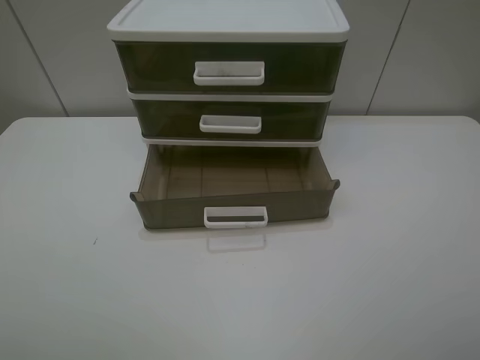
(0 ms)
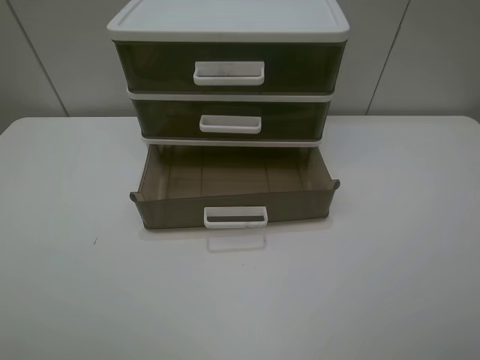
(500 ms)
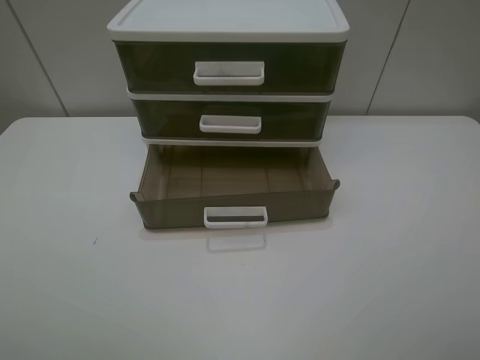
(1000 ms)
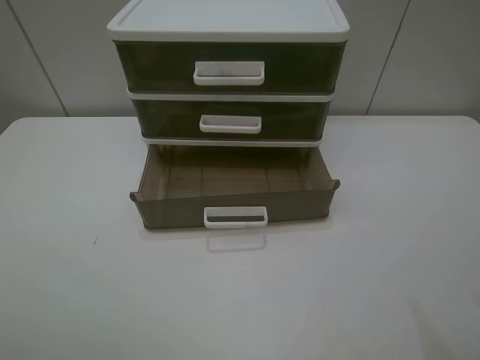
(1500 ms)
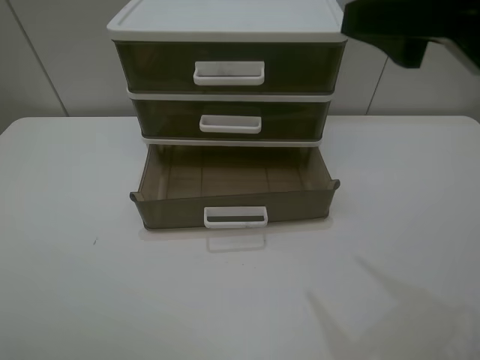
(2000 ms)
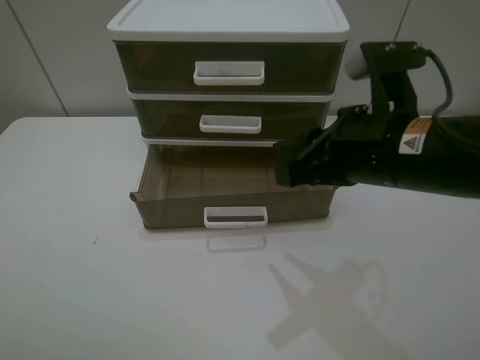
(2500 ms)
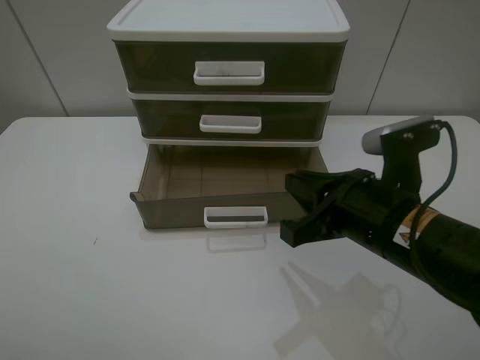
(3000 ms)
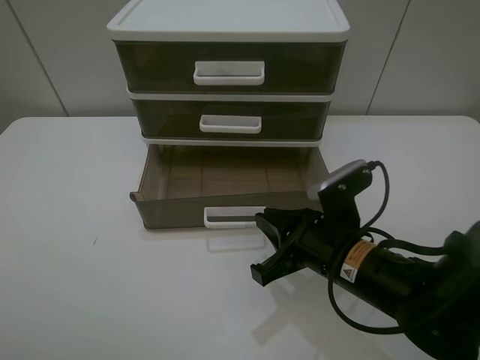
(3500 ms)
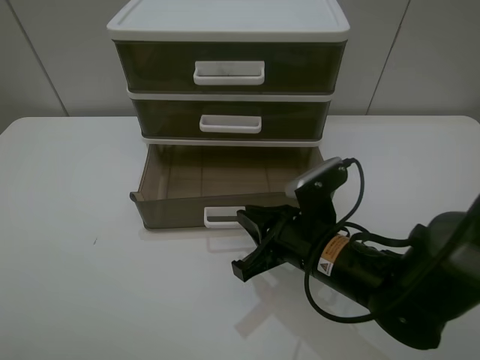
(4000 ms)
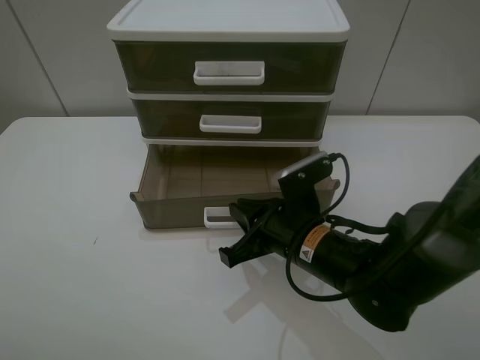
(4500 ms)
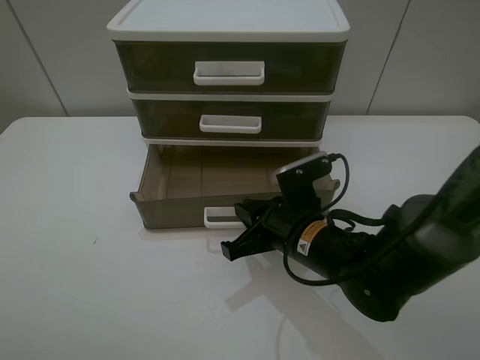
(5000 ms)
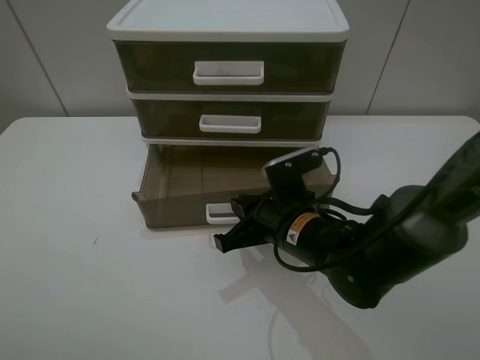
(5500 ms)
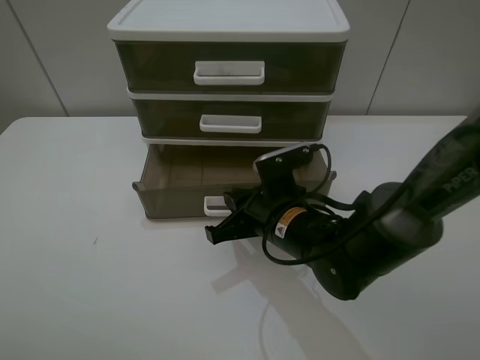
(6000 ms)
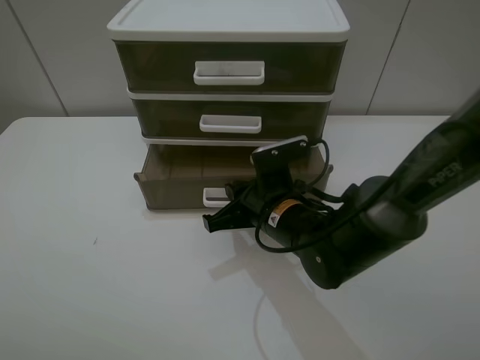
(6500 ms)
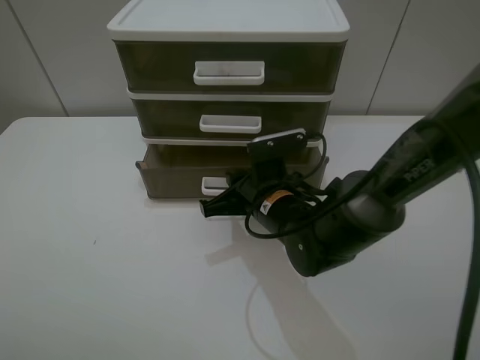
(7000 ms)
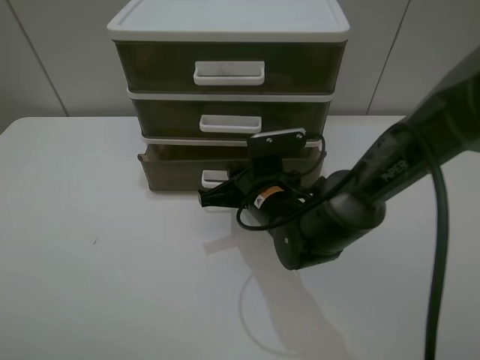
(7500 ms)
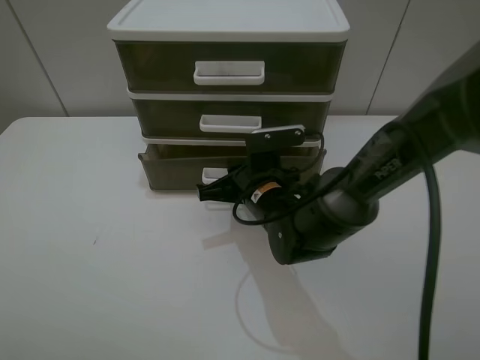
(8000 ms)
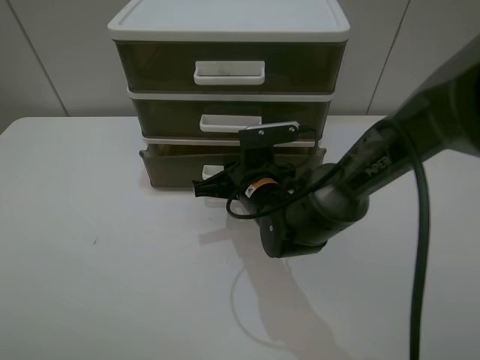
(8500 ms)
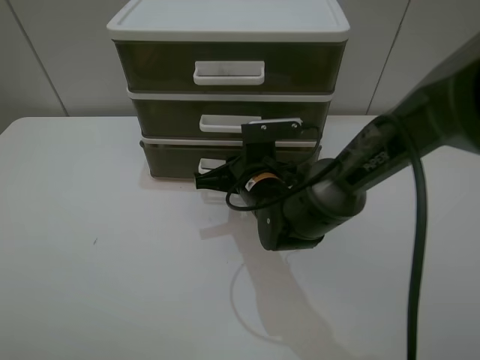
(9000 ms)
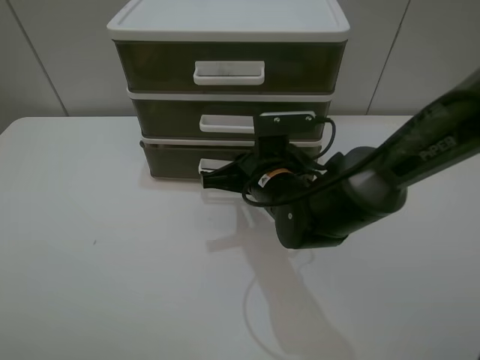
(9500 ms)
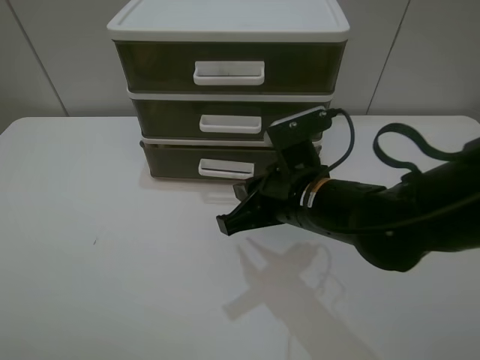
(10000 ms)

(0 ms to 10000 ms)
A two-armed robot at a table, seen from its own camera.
Task of the whole recording: close the bottom drawer.
Step, 0 ms - 5000 ms: Use the right gripper to contact the bottom layer of the storage cabinet.
Step, 5500 ms - 9500 ms: Push the bottom drawer closed.
0 ms - 2000 ms: The right gripper is displaced forward and to the left by about 20 cm.
2000 ms - 4000 ms: The right gripper moves downward, about 25 cm, and closes up.
4000 ms - 6000 ms: The right gripper moves about 5 cm.
6000 ms - 8000 ms: The right gripper changes place by about 5 cm.
8000 ms - 10000 ms: The right gripper shifts some 10 cm upward and backward.

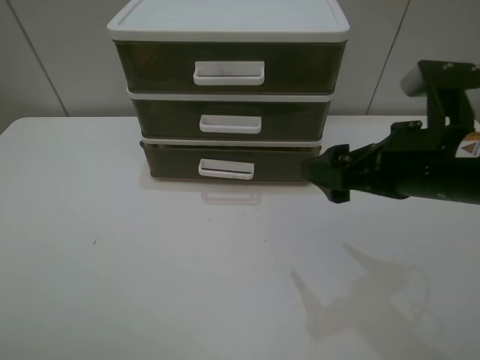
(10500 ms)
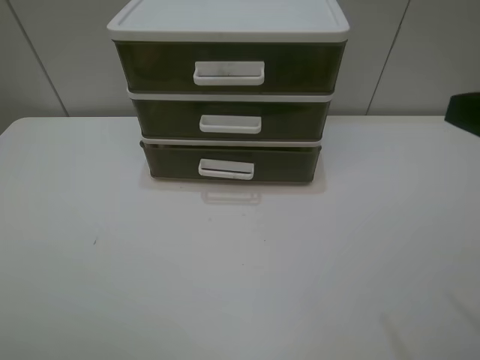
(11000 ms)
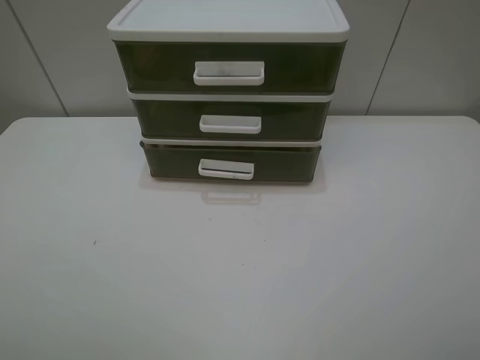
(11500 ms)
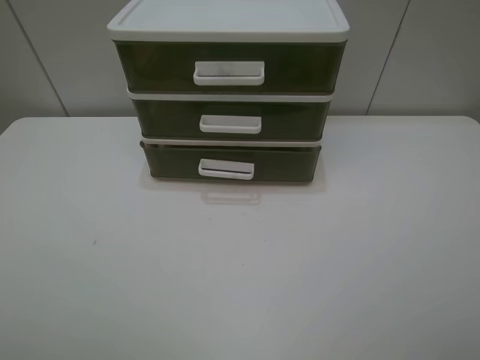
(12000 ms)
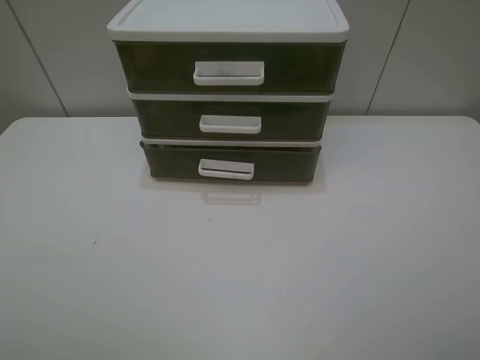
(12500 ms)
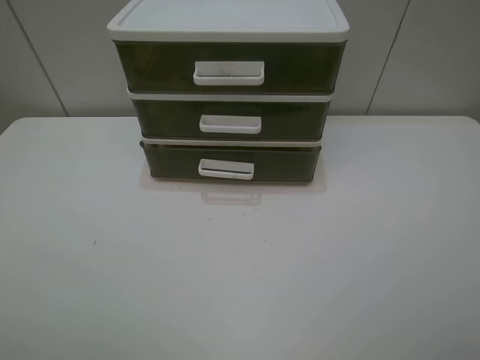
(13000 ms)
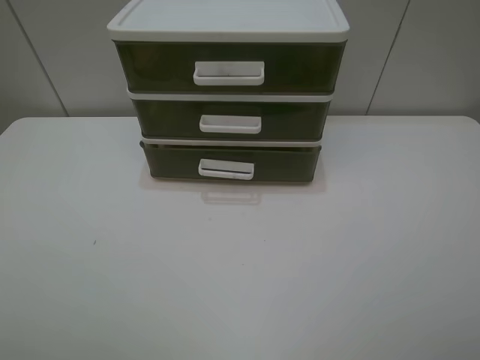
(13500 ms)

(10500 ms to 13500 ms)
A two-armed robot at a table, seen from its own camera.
Task of the whole recording: close the bottom drawer.
10500 ms - 12000 ms: The right gripper travels backward and to the right by roughly 20 cm.

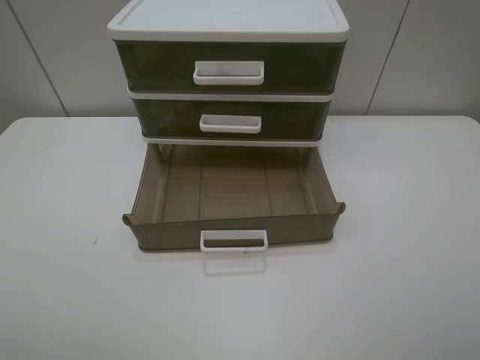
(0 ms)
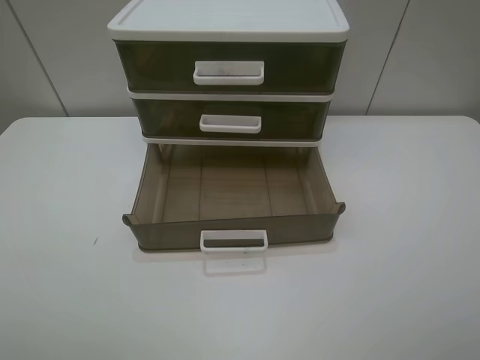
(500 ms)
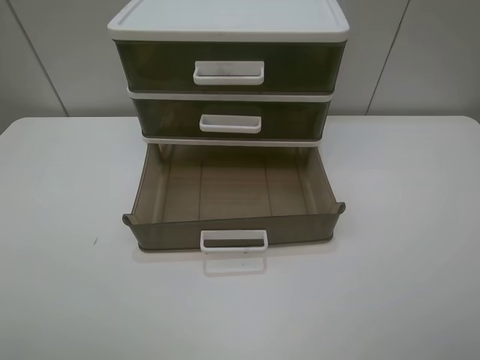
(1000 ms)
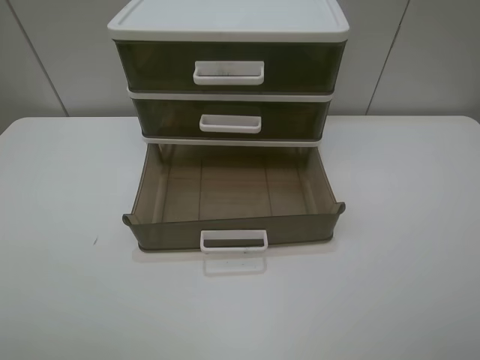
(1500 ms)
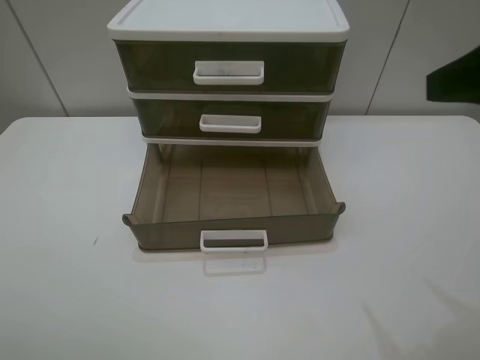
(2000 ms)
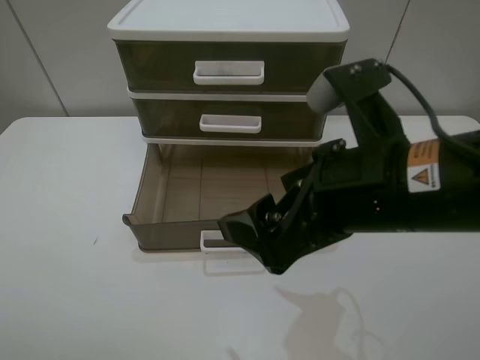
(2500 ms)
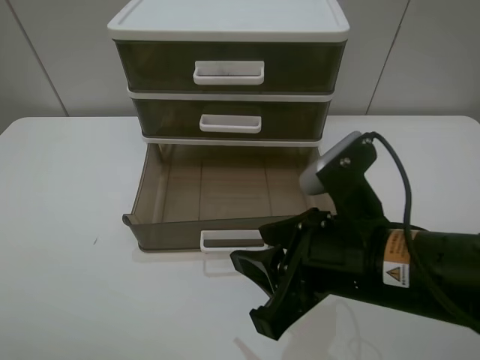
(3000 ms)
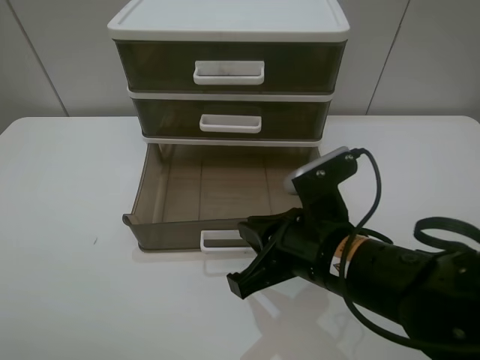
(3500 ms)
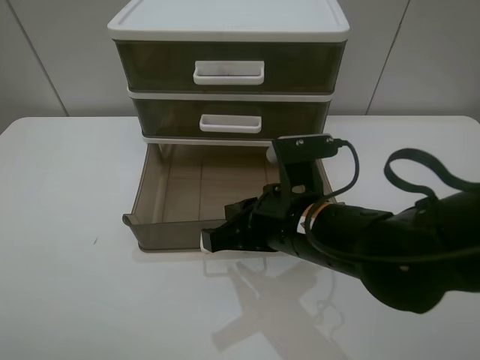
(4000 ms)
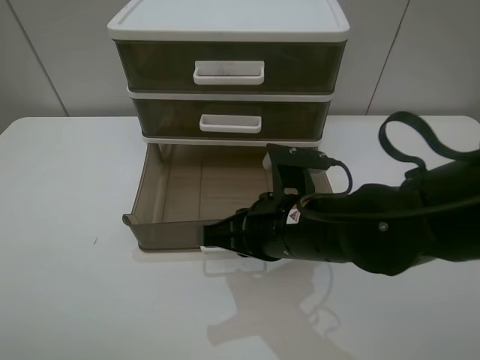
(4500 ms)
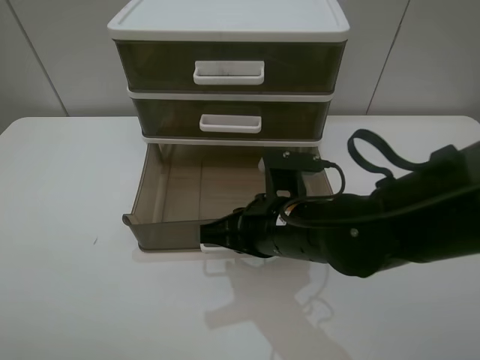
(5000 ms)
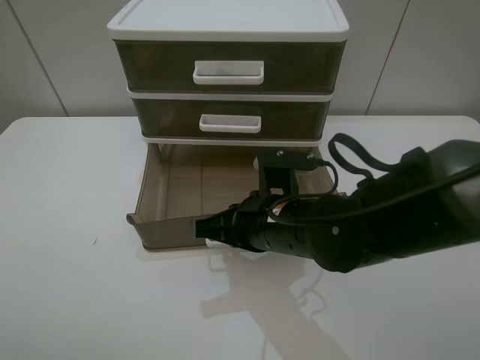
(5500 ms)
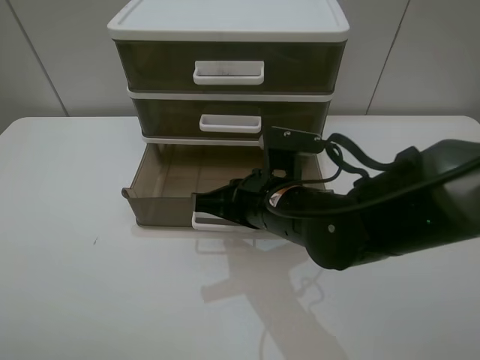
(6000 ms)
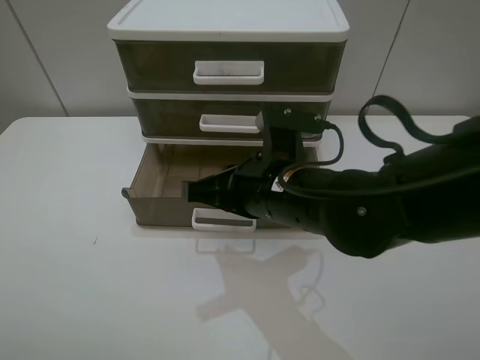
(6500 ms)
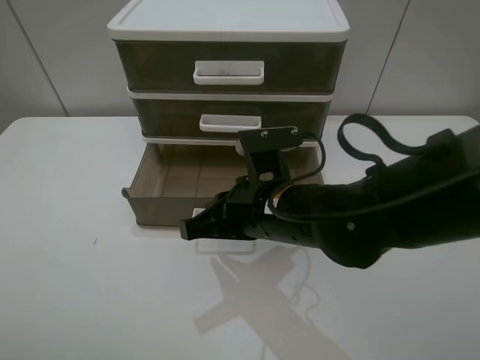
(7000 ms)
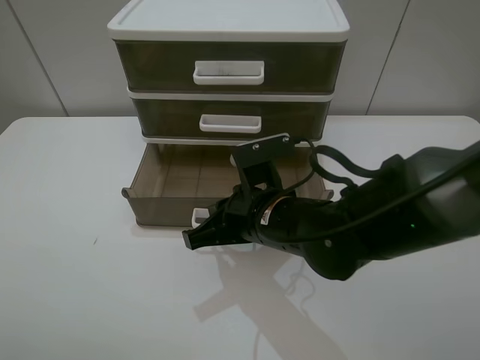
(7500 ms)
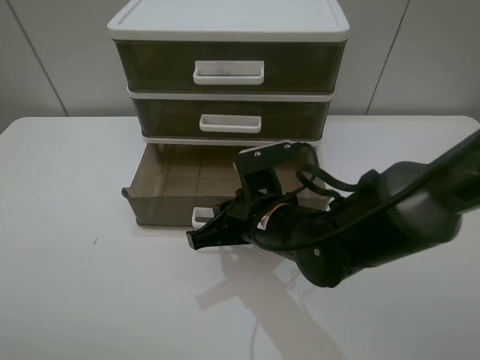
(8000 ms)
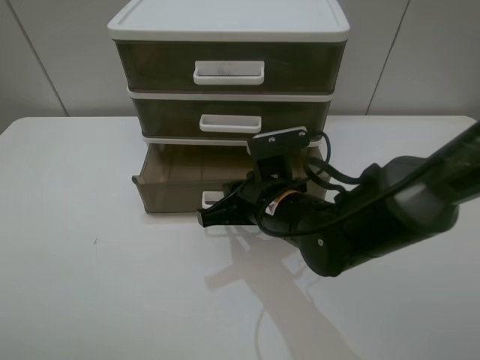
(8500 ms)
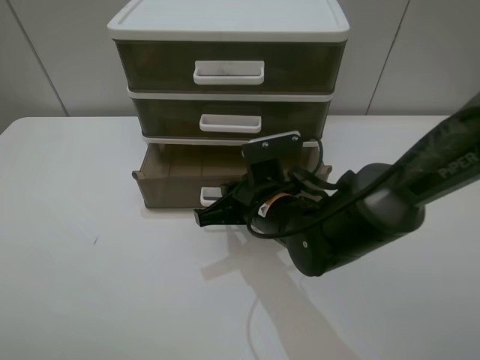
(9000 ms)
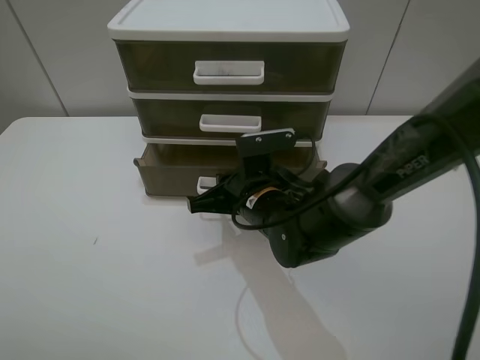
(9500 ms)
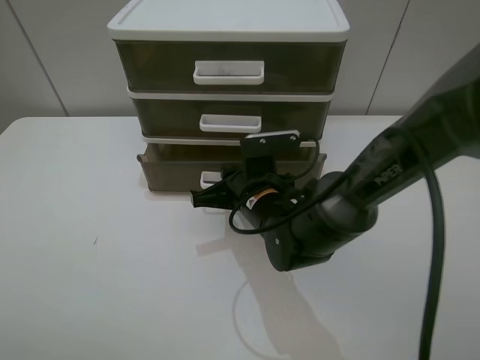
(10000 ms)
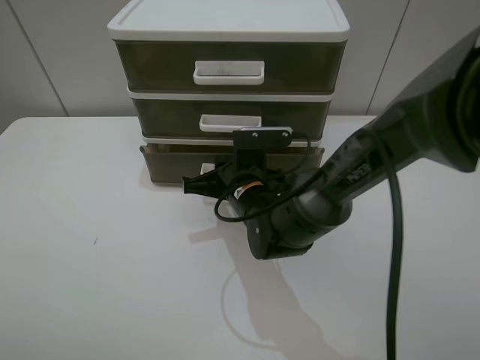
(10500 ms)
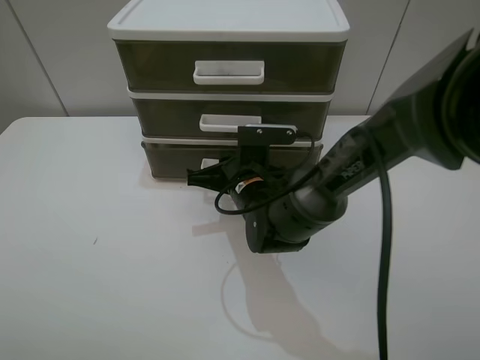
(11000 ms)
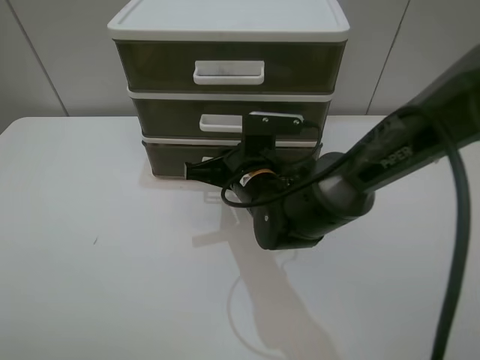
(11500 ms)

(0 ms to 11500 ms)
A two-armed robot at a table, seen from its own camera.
Task of the whole recording: close the bottom drawer.
Step, 0 ms - 5000 ms: Use the right gripper to contact the bottom layer of the storage cabinet.
Step, 5500 ms - 11000 ms: Push the bottom drawer closed.
0 ms - 2000 ms: The right gripper heads forward, covering about 15 cm.
2000 ms - 4000 ms: The right gripper is displaced downward and to the left by about 25 cm, and closes up.
4000 ms - 7500 ms: The grippers make only small movements.
7500 ms - 9500 ms: The right gripper moves forward, roughly 5 cm.
9500 ms - 11500 ms: The grippers move only a little.

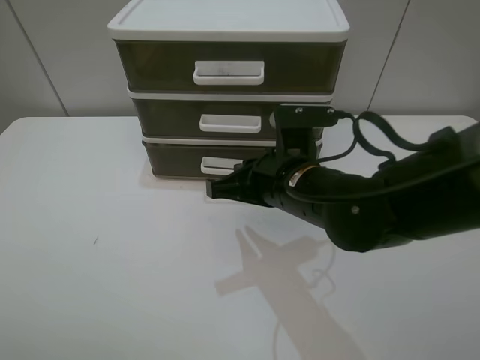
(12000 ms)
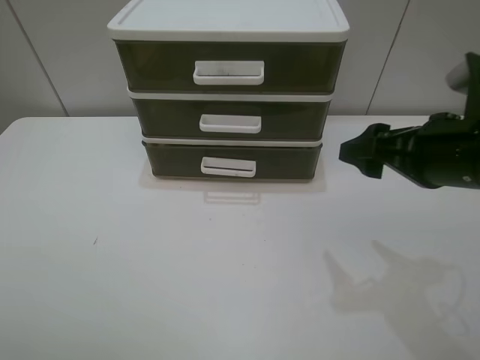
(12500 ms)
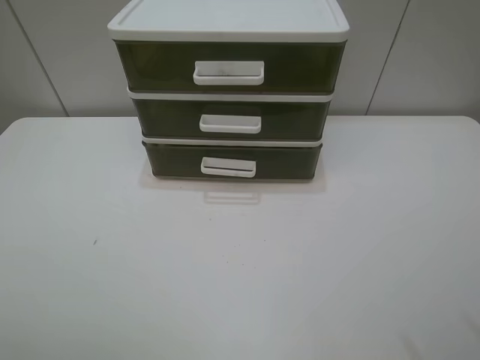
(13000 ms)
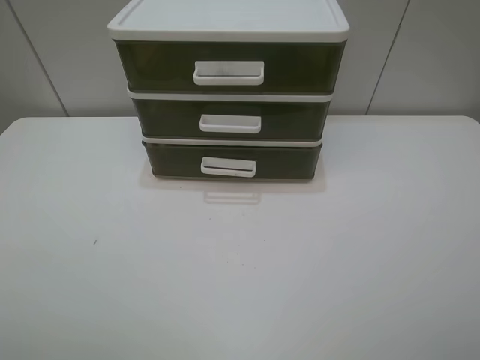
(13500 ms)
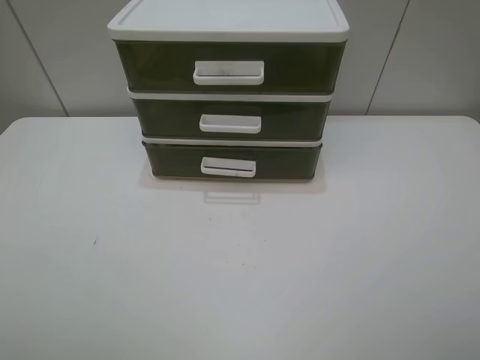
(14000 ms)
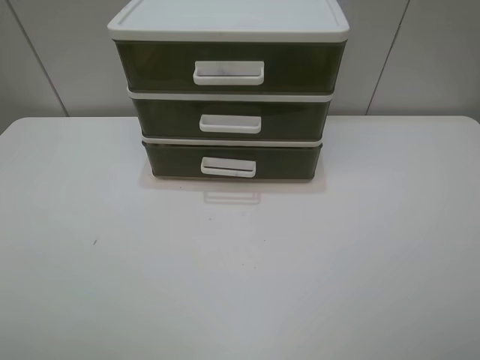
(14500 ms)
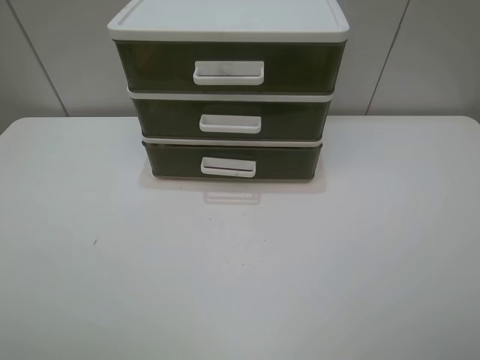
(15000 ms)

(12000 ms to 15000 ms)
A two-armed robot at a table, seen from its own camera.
Task of the whole recording: close the bottom drawer.
12000 ms - 13500 ms: The right gripper shifts approximately 35 cm backward, to the right and upward, and opens its fingers.
